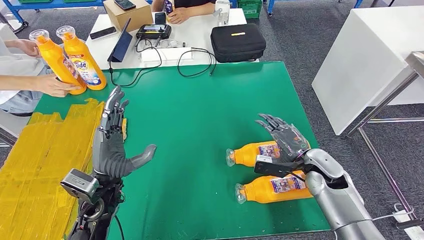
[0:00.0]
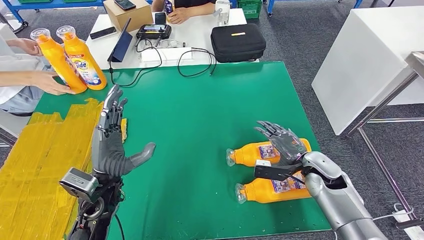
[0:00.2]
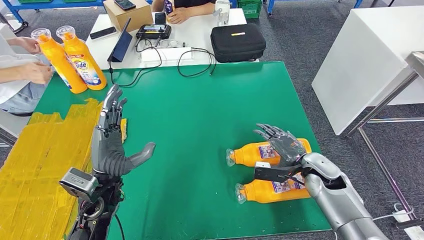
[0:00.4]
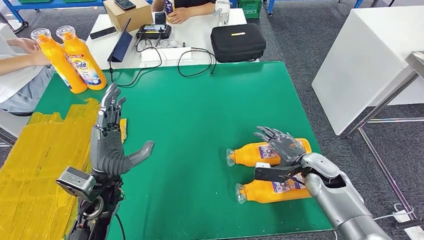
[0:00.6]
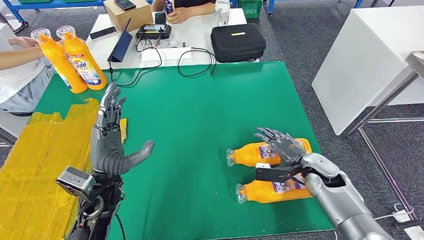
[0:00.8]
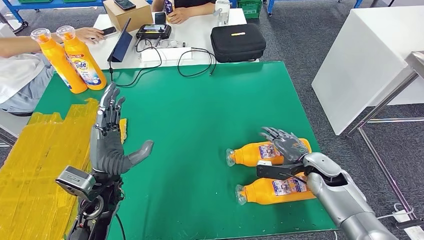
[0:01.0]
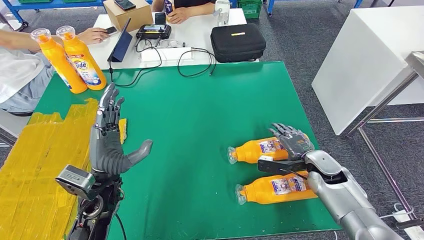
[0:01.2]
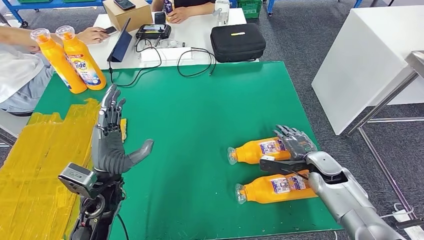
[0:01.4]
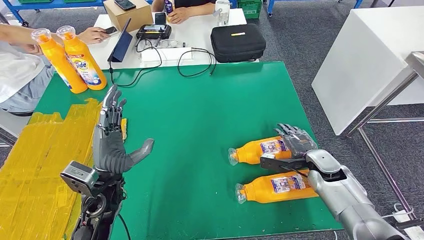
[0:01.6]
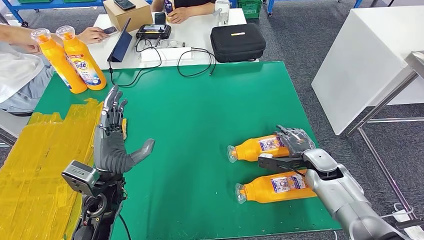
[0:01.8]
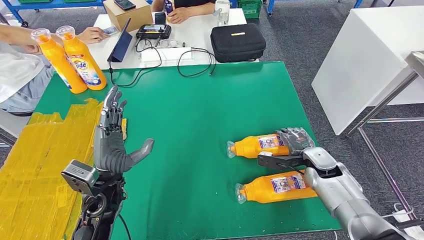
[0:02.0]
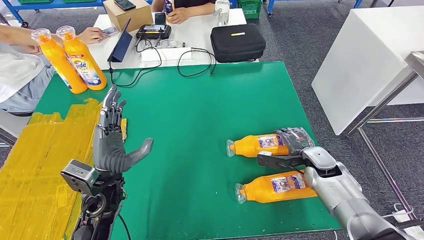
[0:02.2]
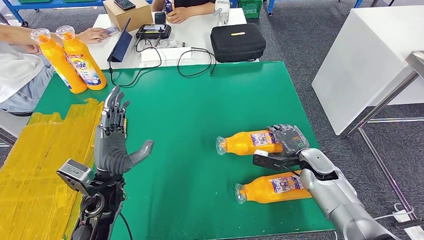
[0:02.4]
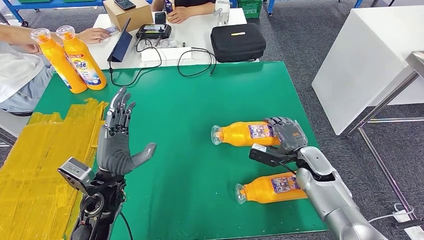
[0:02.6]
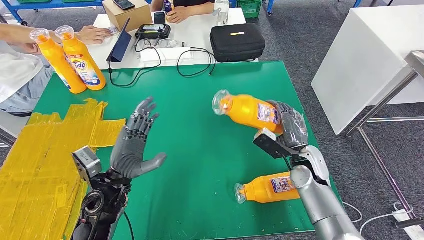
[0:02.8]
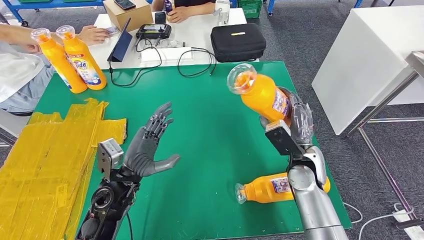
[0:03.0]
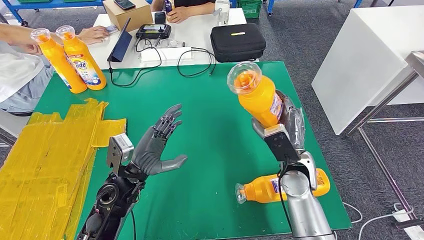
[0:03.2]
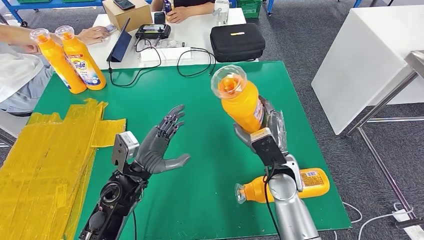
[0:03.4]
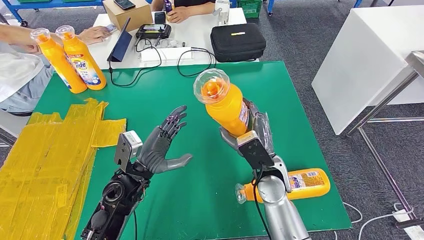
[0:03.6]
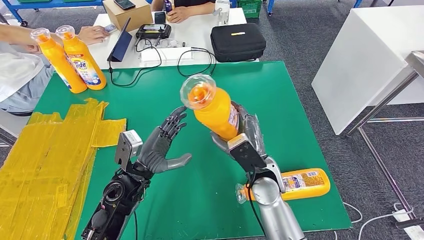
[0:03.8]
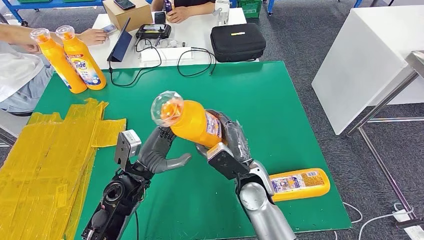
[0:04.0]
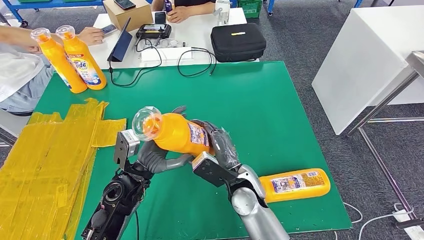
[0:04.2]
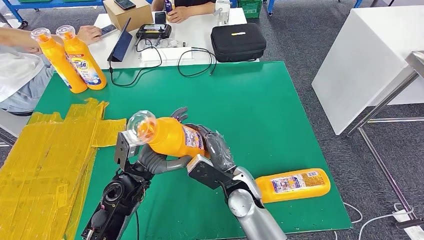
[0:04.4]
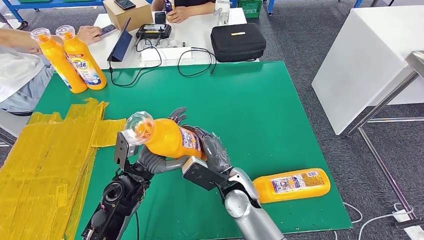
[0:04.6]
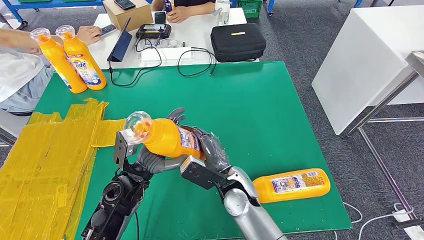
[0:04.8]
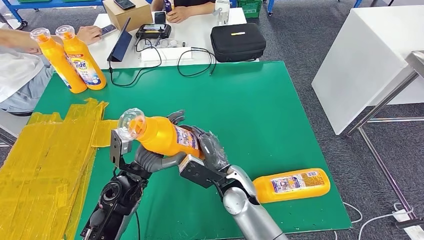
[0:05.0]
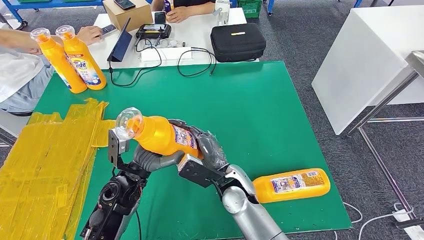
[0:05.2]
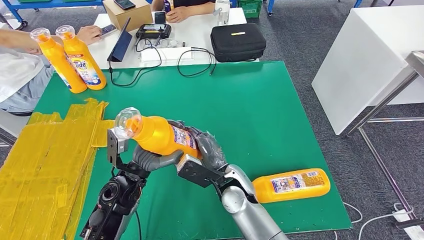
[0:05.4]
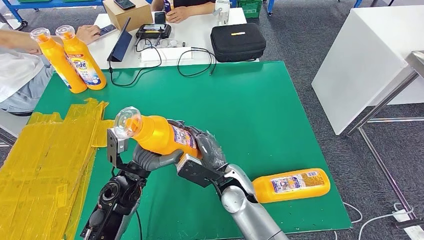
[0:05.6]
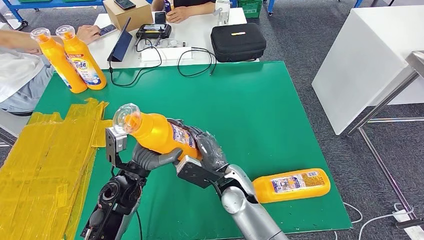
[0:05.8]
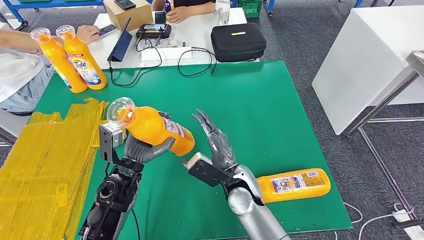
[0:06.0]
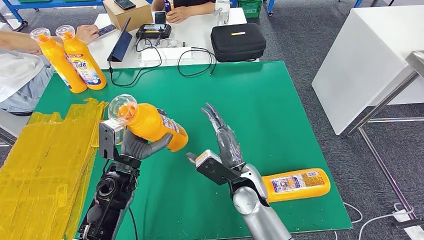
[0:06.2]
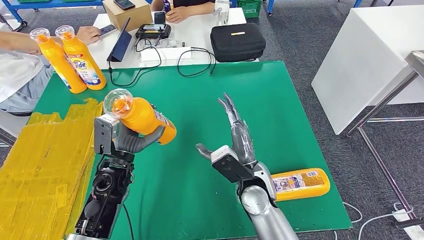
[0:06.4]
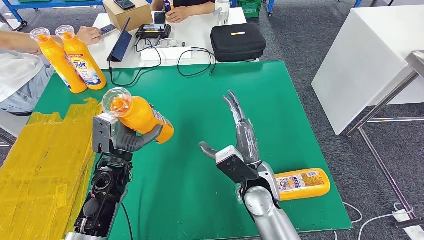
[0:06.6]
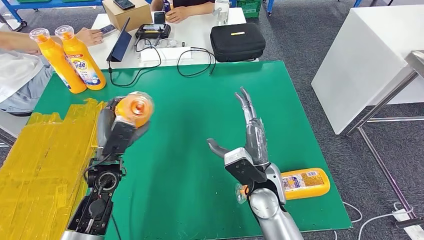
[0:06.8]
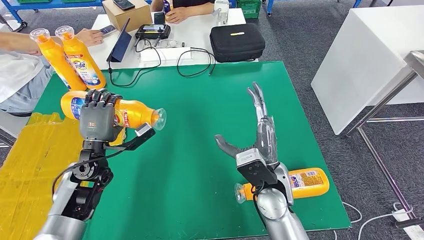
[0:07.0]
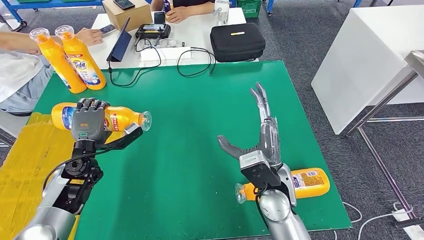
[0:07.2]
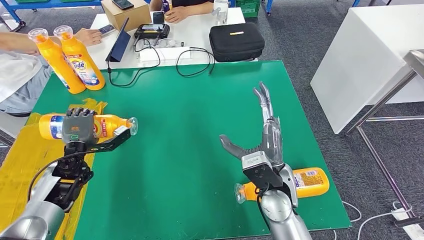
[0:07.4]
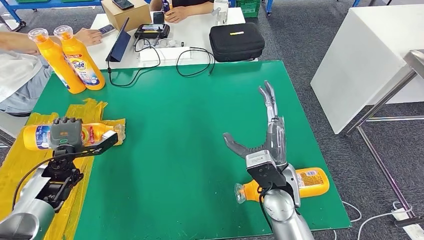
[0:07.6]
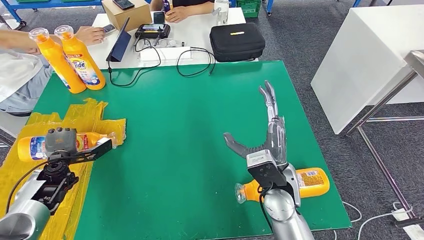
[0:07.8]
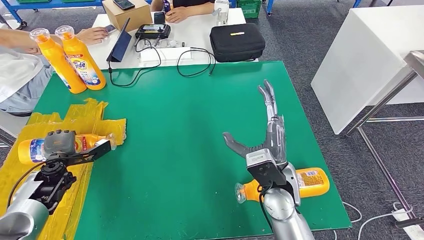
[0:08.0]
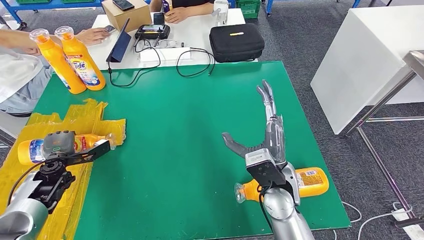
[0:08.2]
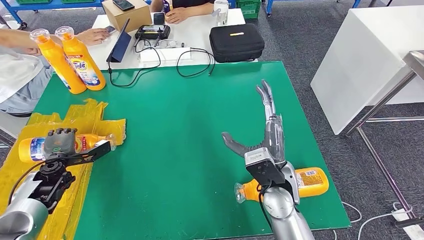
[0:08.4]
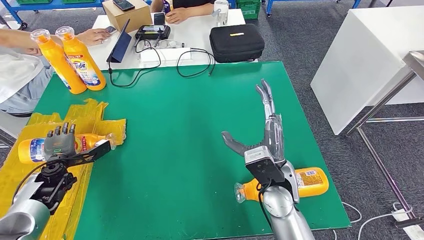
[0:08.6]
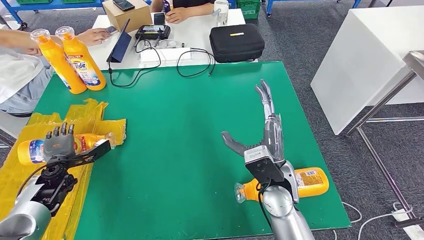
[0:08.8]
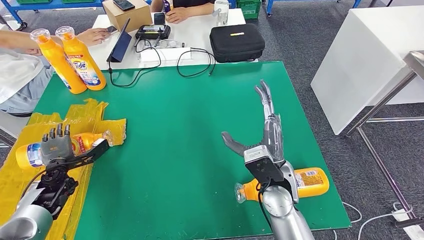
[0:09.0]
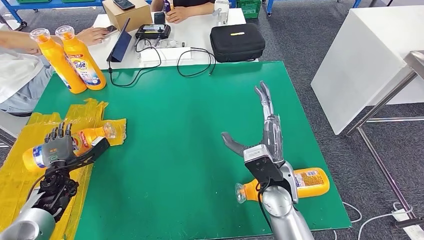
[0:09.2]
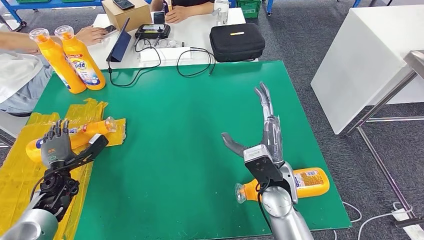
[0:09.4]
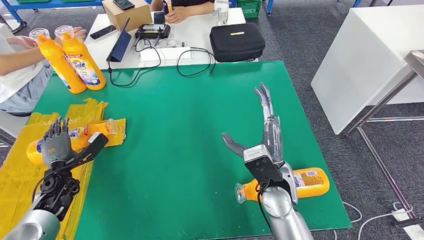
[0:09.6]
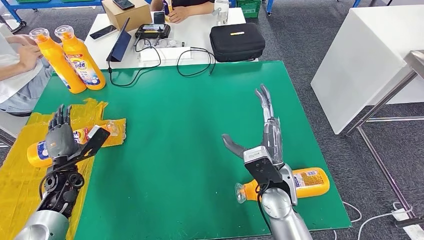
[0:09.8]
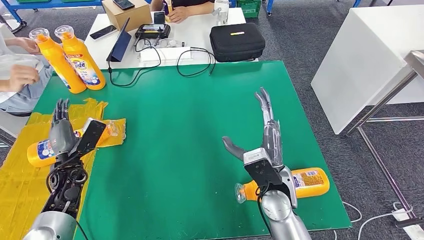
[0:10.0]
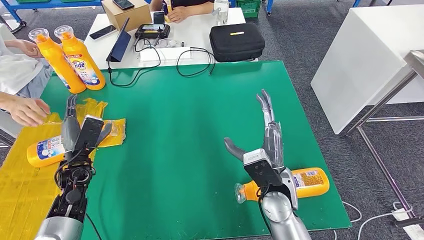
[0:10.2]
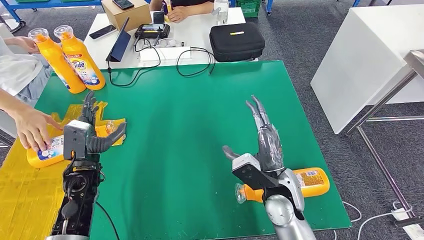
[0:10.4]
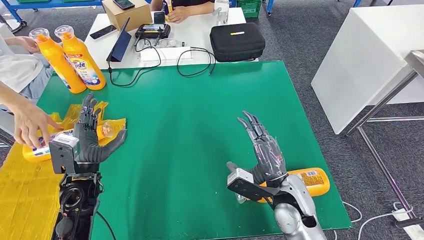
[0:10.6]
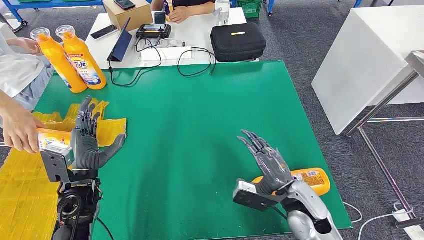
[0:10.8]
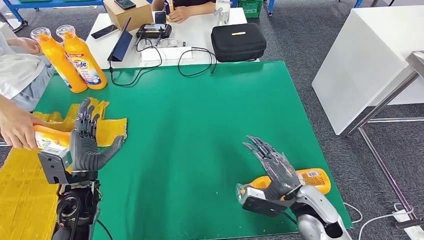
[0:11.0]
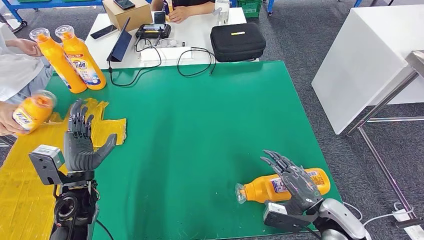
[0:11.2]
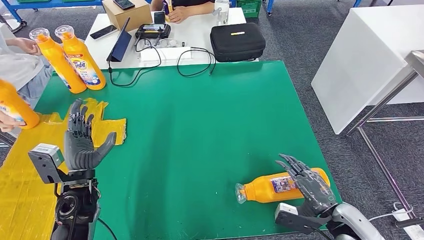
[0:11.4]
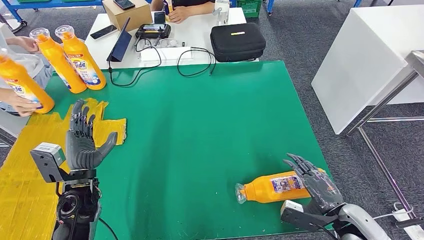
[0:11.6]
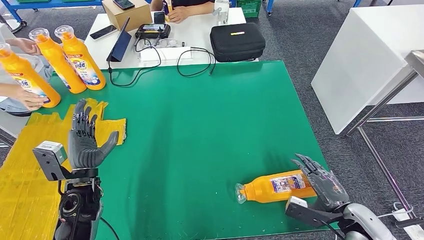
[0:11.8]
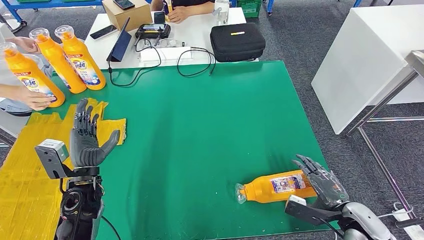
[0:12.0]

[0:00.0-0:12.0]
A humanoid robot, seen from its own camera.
Step, 0:00.0 to 0:04.2: Pick up the fast-moving consumer goods bottle from the table.
Step, 0:04.4 to 0:08.0: Flip the fast-moving consumer goods bottle to the front side.
0:00.0 to 0:01.6: The right hand moves some 5 cm.
0:01.6 to 0:03.0: The right hand travels to the left and upward by roughly 10 cm.
0:03.0 to 0:04.4: The right hand heads to the left, covering some 15 cm.
0:04.4 to 0:06.0: The hands make only small movements.
0:07.6 to 0:09.0: The hands stay close to where they were, moving slightly.
0:09.0 to 0:10.4: The left hand is displaced to the right and upward by roughly 15 cm.
0:10.4 to 0:12.0: The right hand shifts about 20 cm to the right.

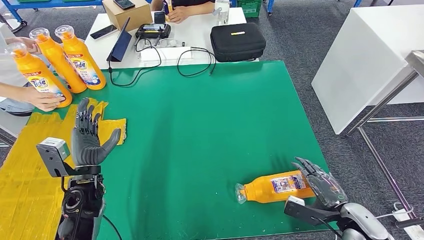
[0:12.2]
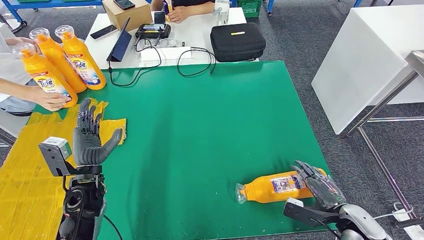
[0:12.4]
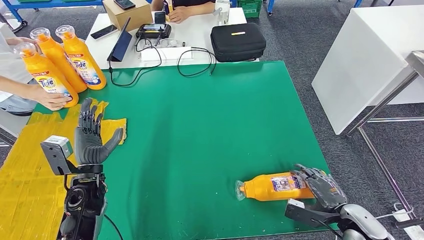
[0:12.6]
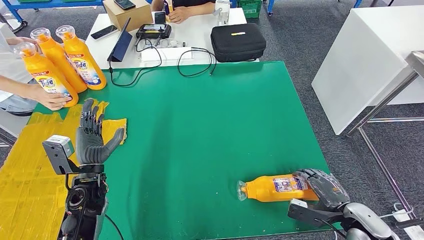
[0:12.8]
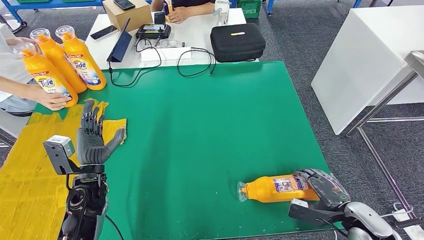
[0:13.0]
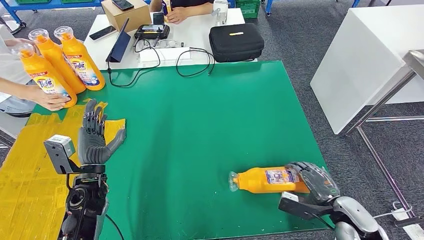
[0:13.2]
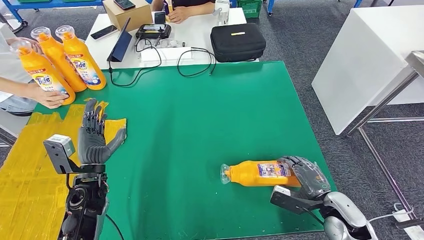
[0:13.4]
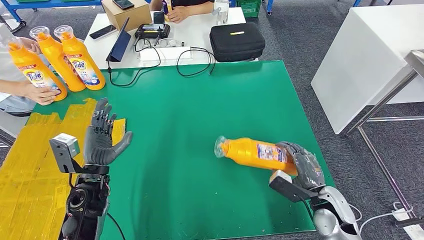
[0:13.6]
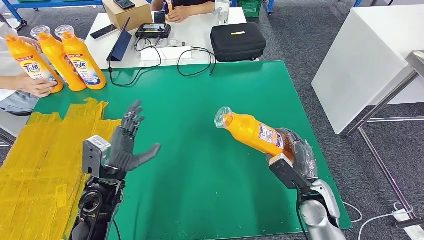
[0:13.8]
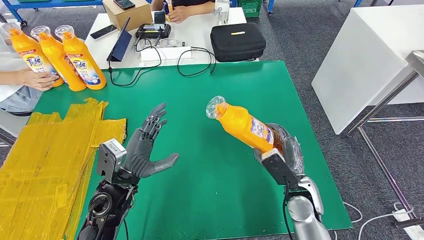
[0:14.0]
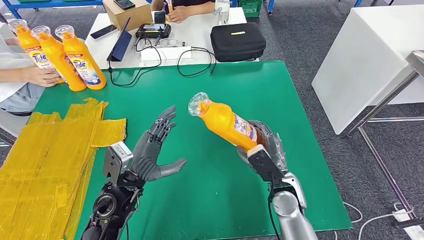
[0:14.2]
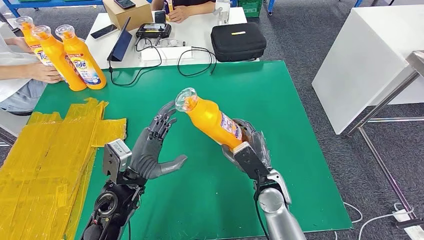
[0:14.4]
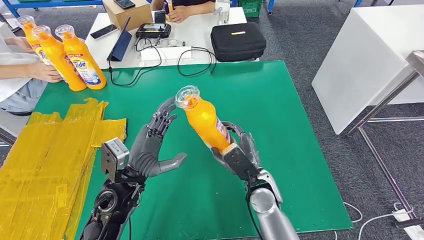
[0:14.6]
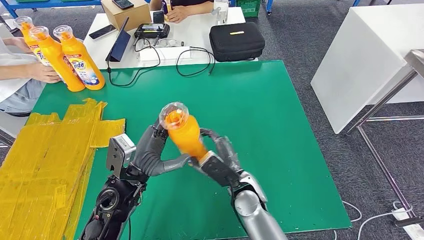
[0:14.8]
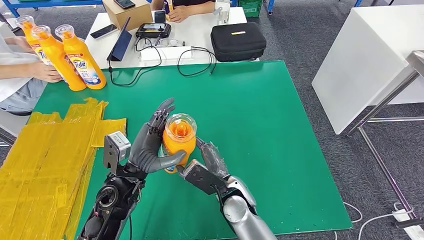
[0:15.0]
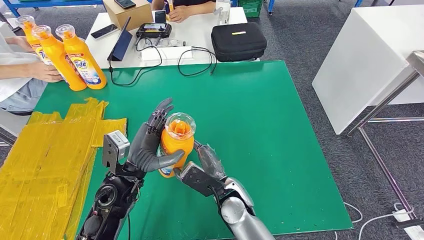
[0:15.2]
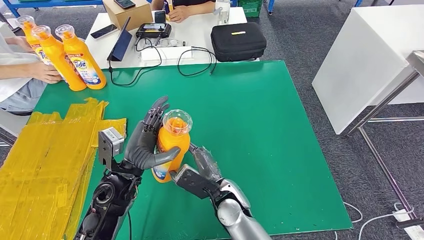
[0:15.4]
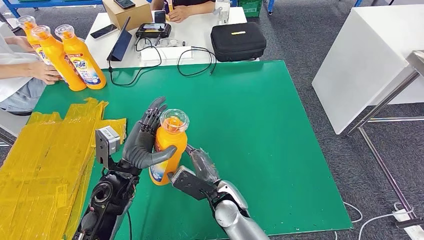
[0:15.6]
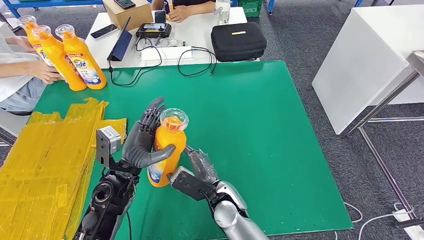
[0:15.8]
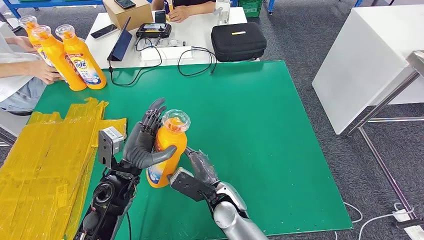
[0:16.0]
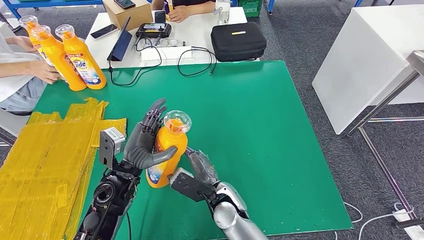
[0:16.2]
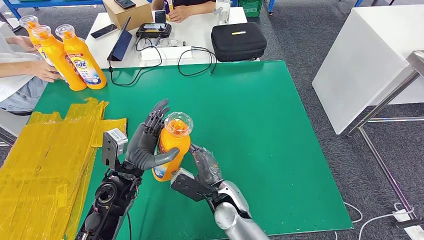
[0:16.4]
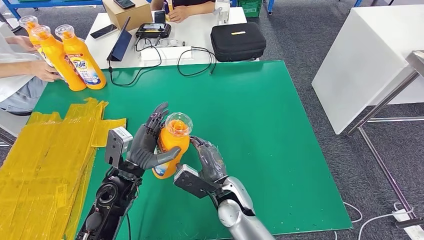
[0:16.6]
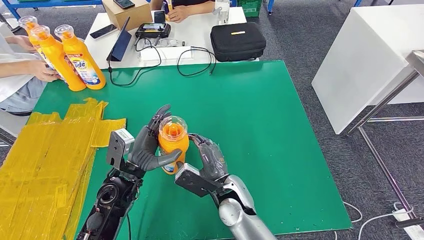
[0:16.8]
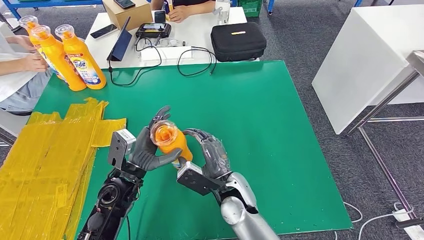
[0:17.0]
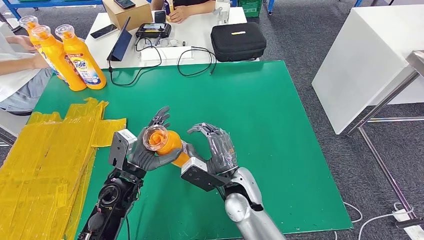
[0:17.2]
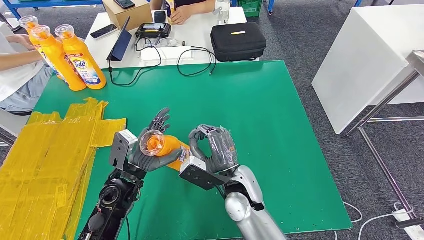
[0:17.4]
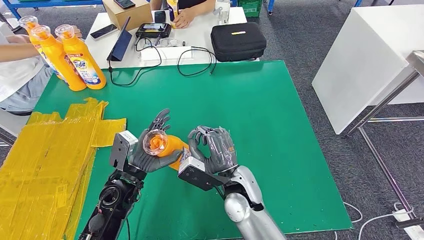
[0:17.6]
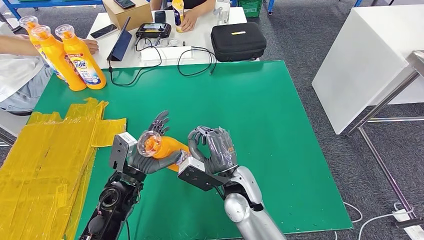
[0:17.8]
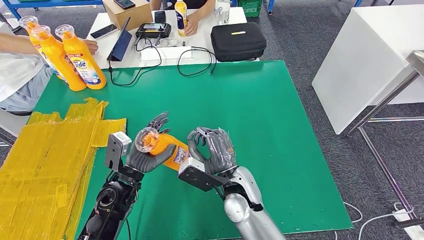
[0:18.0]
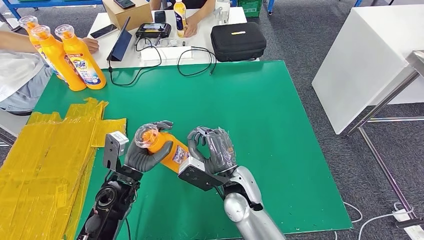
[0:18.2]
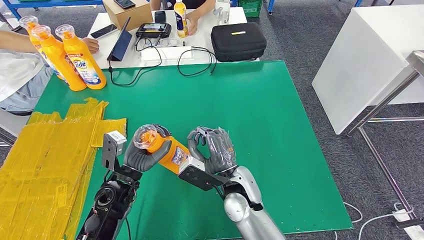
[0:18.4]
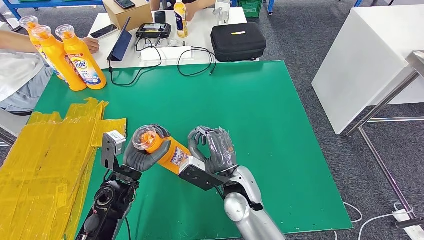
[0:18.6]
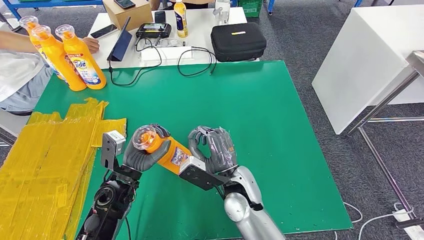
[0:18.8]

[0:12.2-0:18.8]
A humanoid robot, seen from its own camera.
Step, 0:12.2 to 0:15.0: Pick up the fast-moving consumer goods bottle from the table.
0:12.2 to 0:13.8: The right hand travels to the left and forward by about 10 cm, while the left hand moves to the right, roughly 5 cm.
0:13.8 to 0:15.4: The right hand goes about 25 cm to the left.
0:17.2 to 0:18.8: The hands stay close to where they were, moving slightly.
